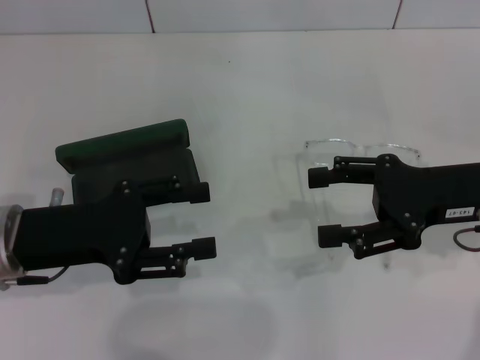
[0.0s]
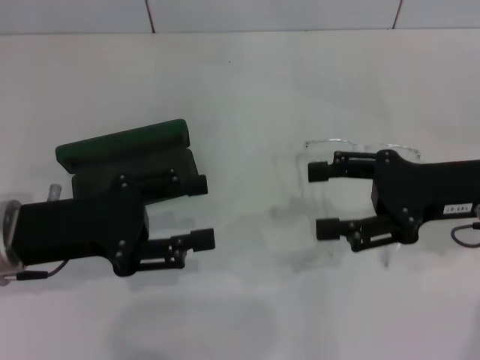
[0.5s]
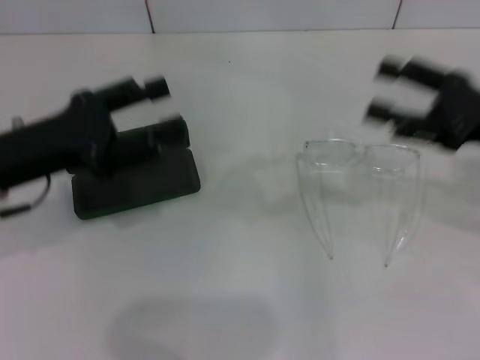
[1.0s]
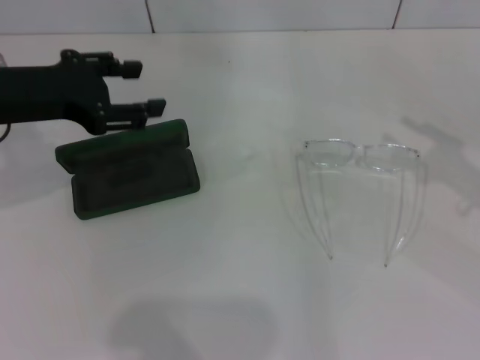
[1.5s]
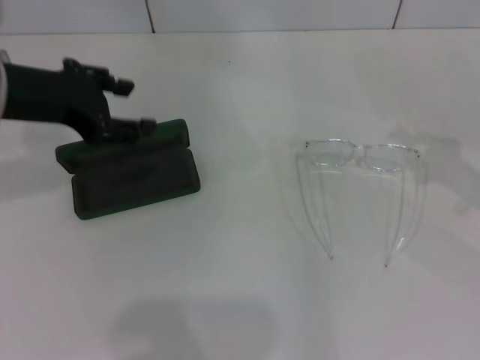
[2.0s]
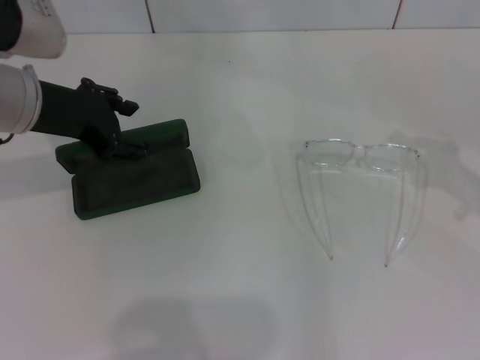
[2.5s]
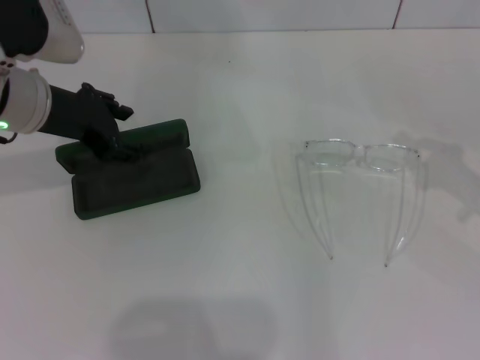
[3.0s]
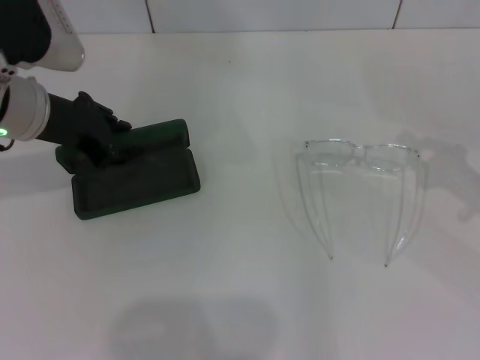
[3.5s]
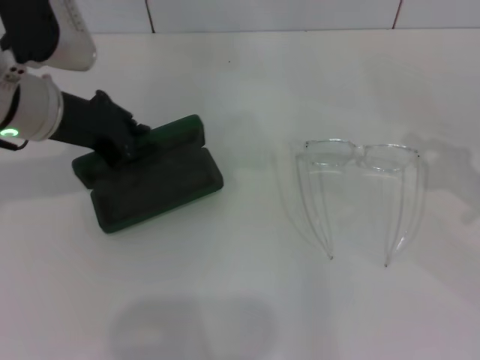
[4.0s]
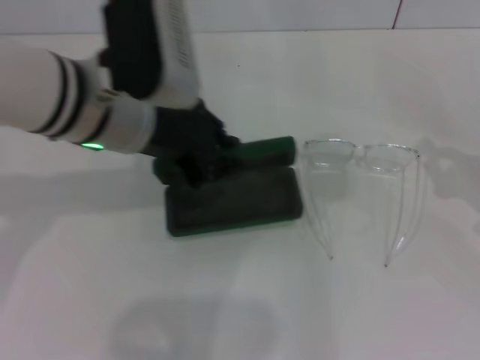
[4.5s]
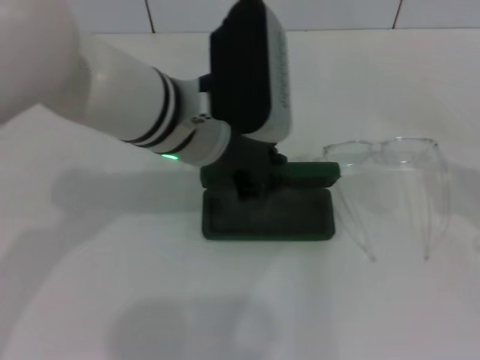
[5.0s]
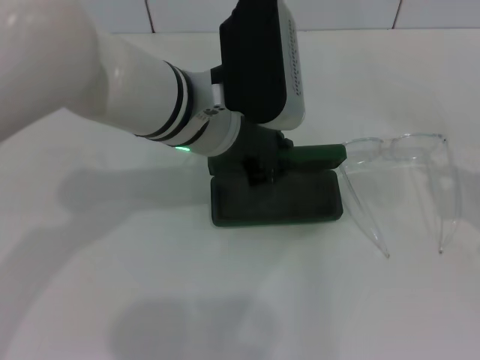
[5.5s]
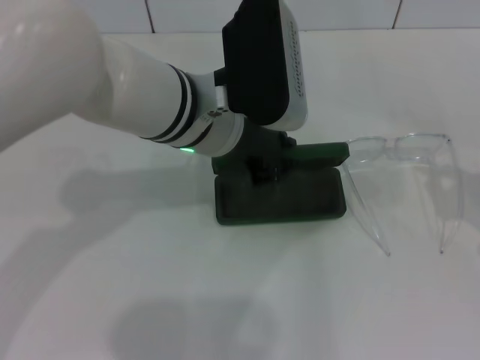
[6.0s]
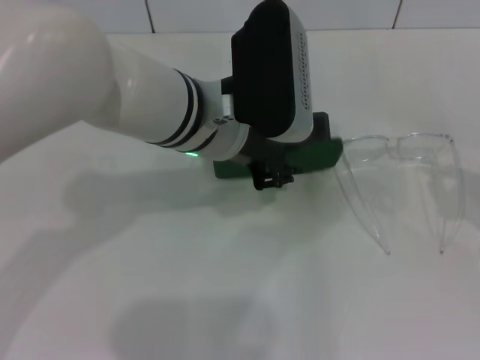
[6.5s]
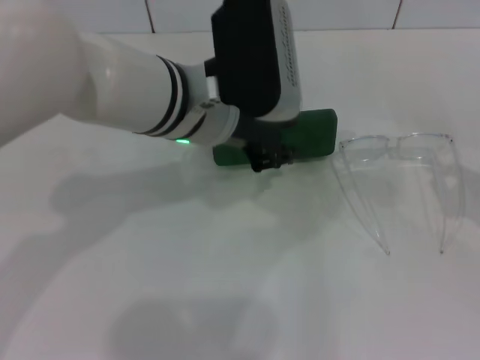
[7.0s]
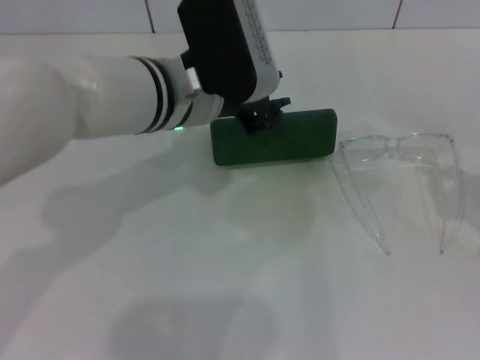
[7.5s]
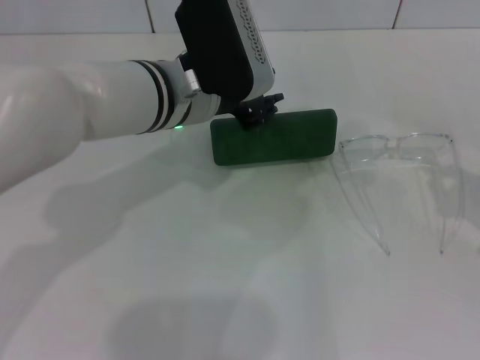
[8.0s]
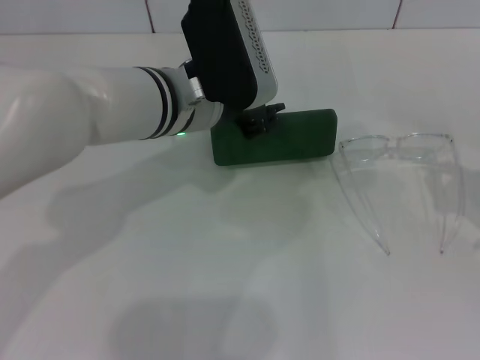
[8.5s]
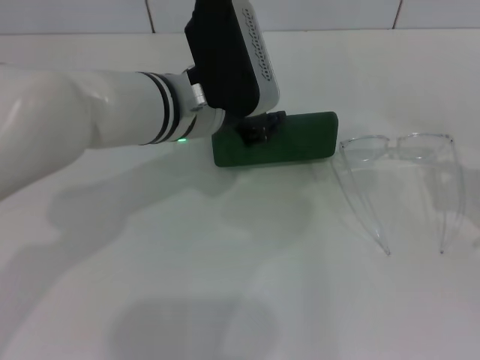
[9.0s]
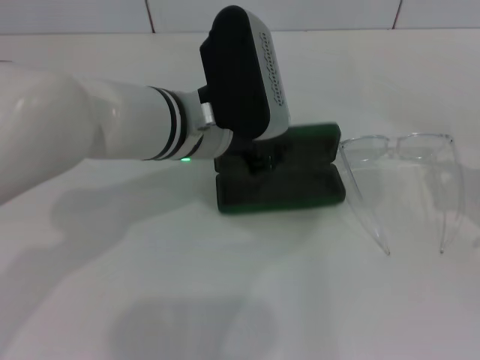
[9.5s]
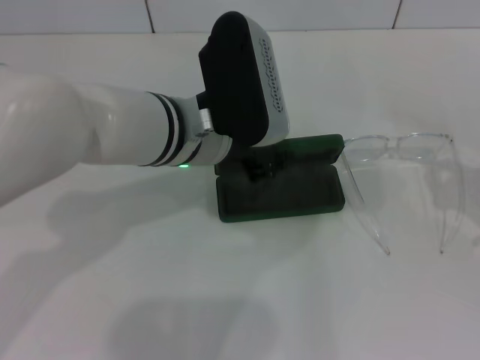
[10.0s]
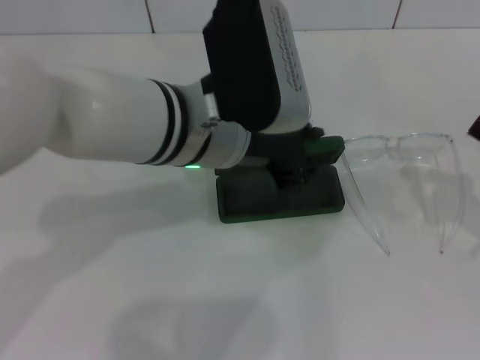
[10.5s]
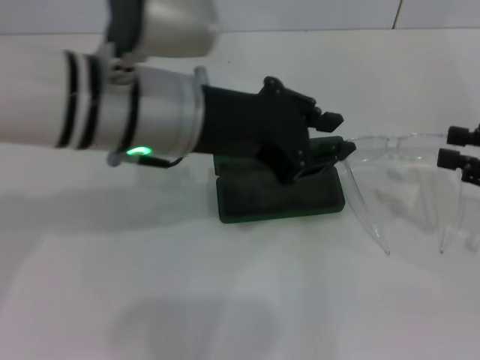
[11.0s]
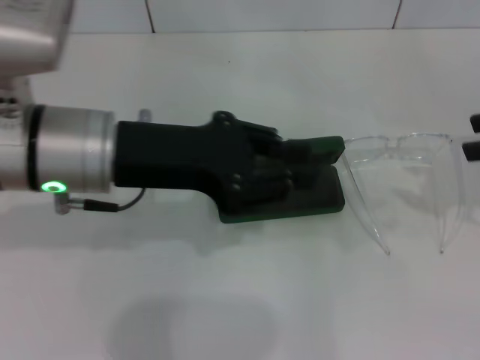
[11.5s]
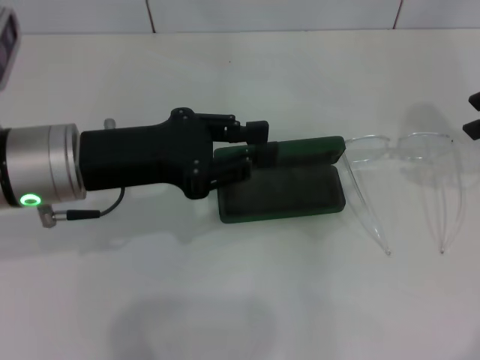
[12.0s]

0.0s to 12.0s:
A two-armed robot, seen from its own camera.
Step, 0.0s to 3.0s: Grab the glasses case with your left hand.
Step, 3.5s to 10.0s: Place the glasses case in the center of the table with your left hand.
0.0s to 2.0s: The right gripper goes some 10 cm to the right, and closes; the left gripper is displaced upward and forward by some 15 cm.
2.0s to 4.0s: The left gripper closes.
4.0s to 6.0s: The left gripper shifts about 15 cm to the right.
8.0s to 10.0s: There are only small adjustments of the grippers.
10.0s to 12.0s: The left gripper heads to the left, covering some 10 cm. Meanwhile the right gripper goes about 20 cm upward and forward, and opens up.

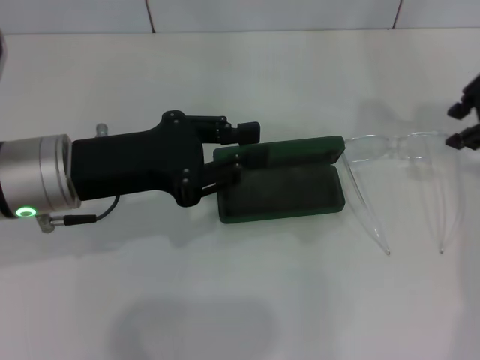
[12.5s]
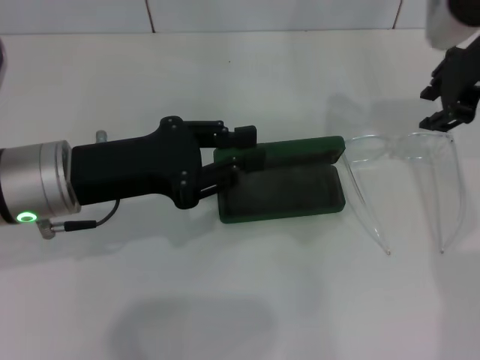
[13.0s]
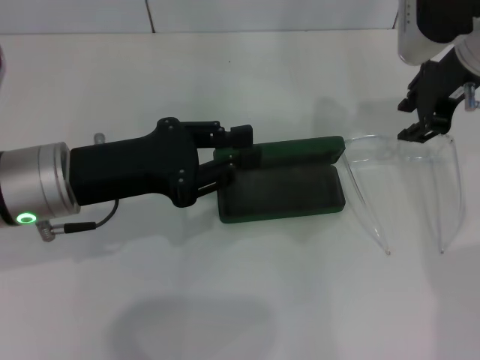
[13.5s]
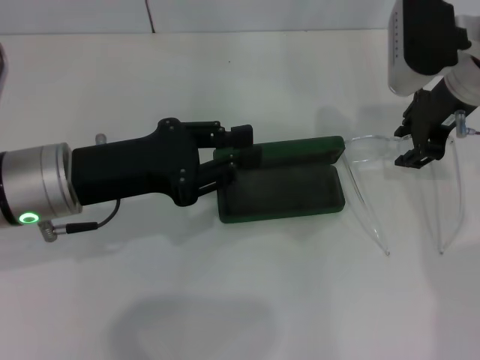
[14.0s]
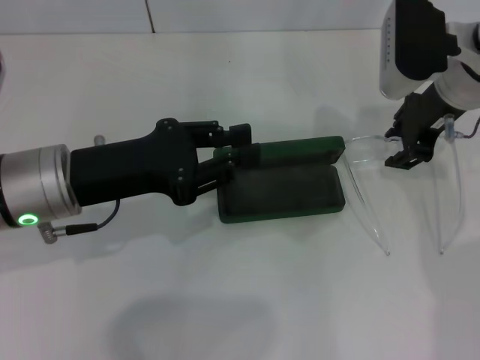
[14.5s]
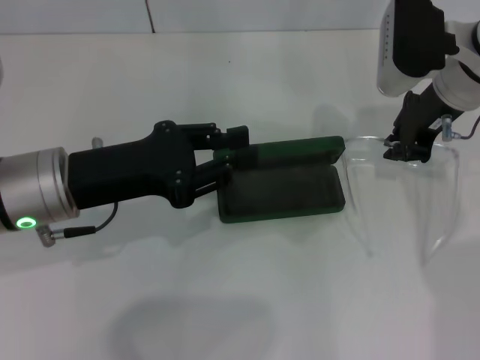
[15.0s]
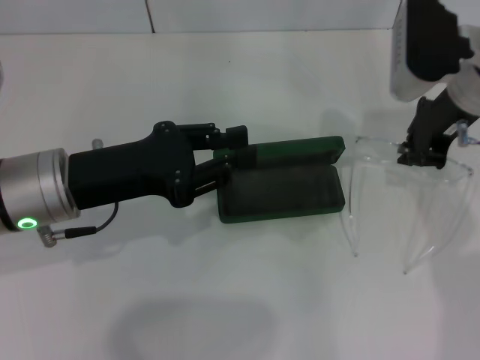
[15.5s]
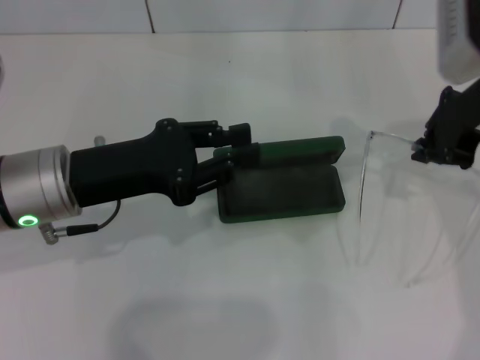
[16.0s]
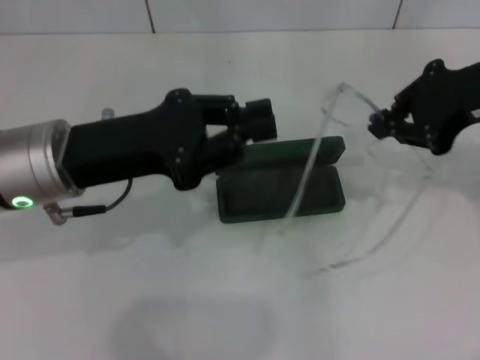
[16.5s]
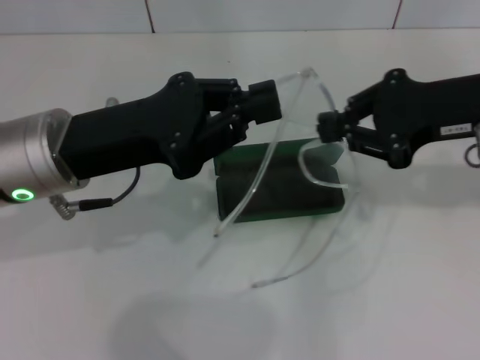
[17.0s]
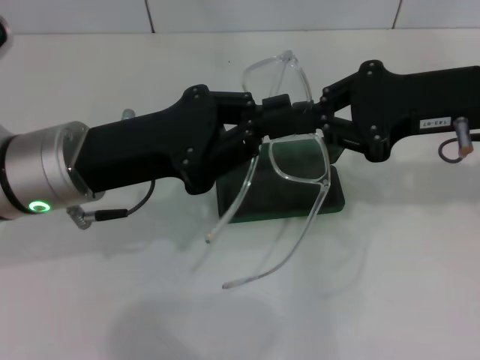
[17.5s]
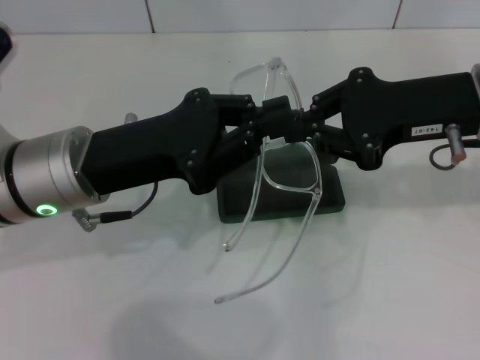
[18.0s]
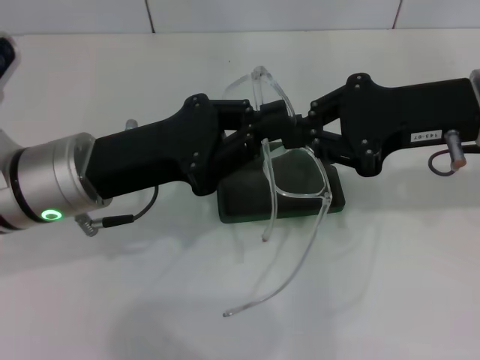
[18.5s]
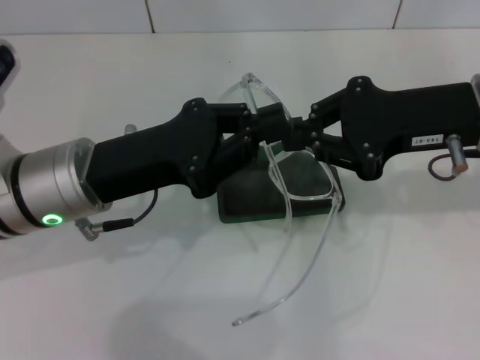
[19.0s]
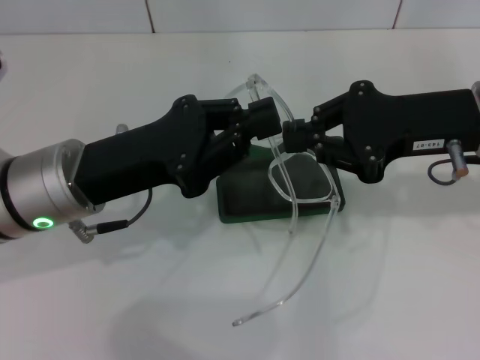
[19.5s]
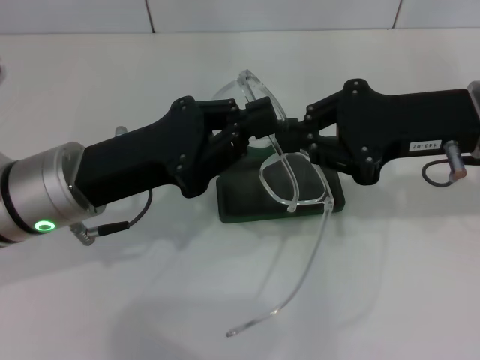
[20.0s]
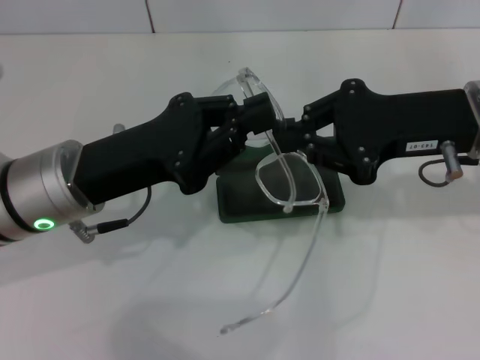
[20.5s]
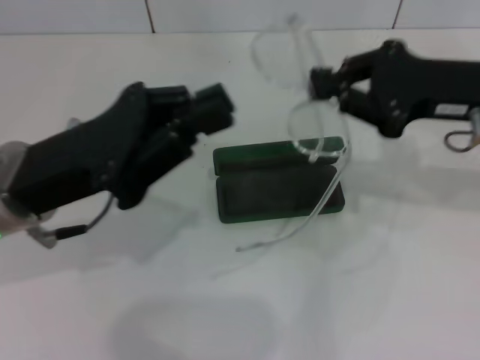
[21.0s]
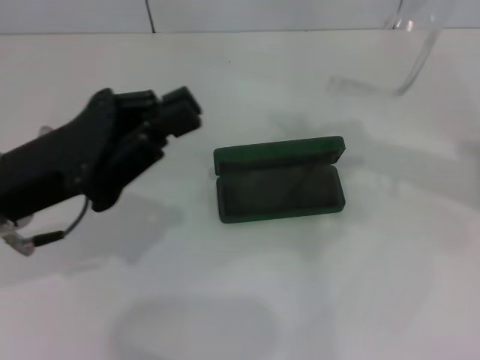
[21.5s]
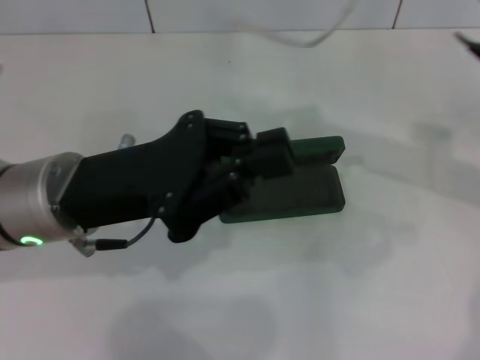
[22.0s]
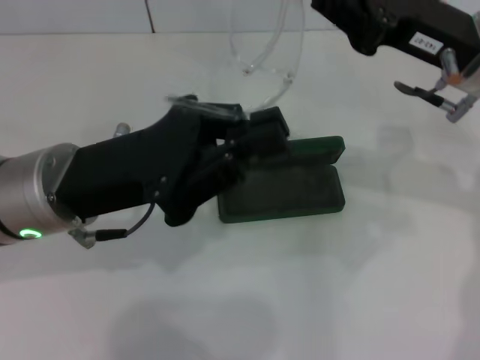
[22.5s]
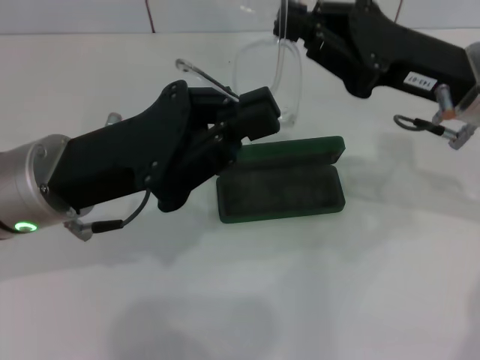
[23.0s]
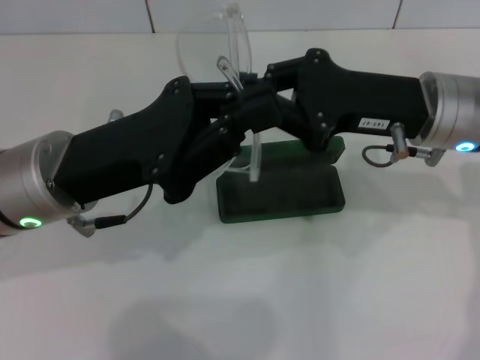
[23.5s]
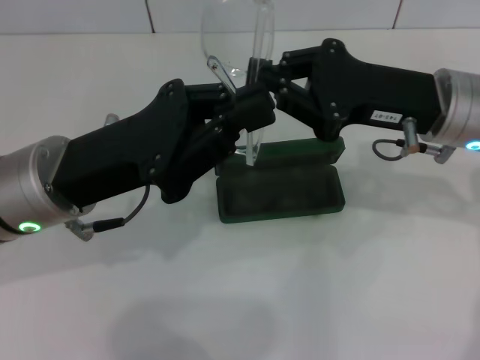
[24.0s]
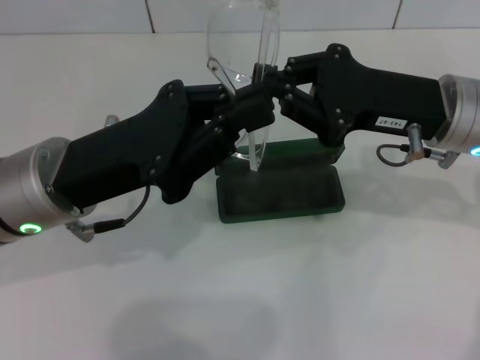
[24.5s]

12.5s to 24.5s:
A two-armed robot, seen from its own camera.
Step, 12.5s to 15.0s: Grab the eyeglass frame with your right hand.
12.5s to 14.5s: The right gripper moves downward and to the left, roughly 10 cm.
14.5s to 16.5s: The right gripper shifts approximately 10 cm backward and upward, and closes.
16.5s to 18.5s: The right gripper changes place by about 5 cm.
18.5s to 20.5s: The grippers make only small movements.
20.5s to 22.5s: The right gripper goes to the right and returns, approximately 10 cm each way.

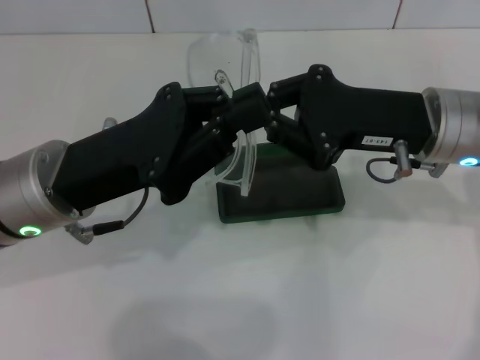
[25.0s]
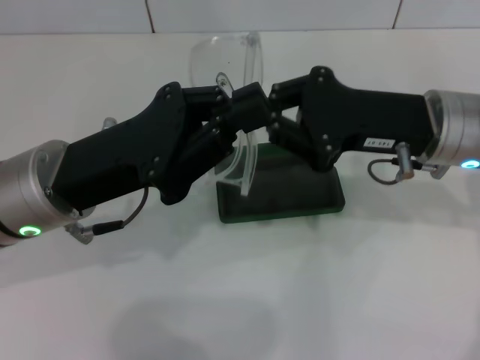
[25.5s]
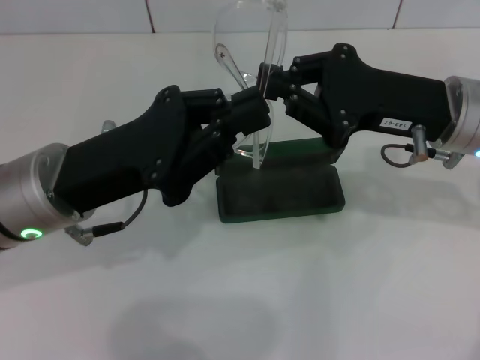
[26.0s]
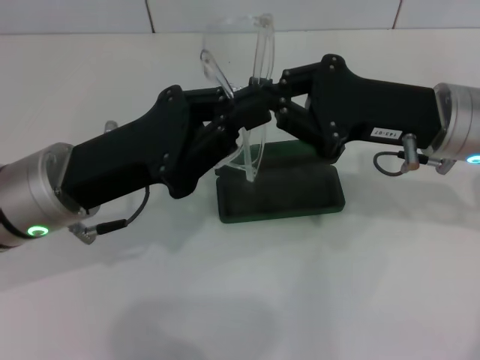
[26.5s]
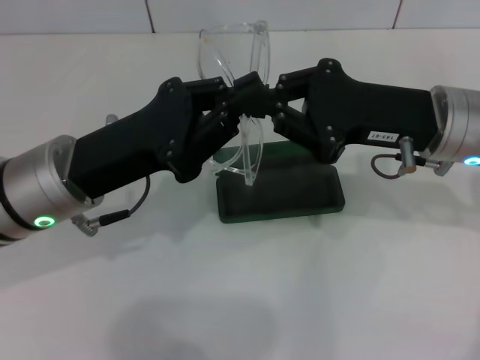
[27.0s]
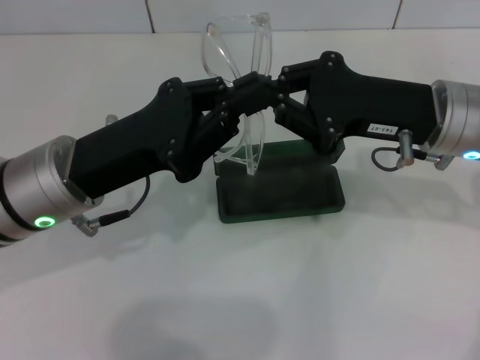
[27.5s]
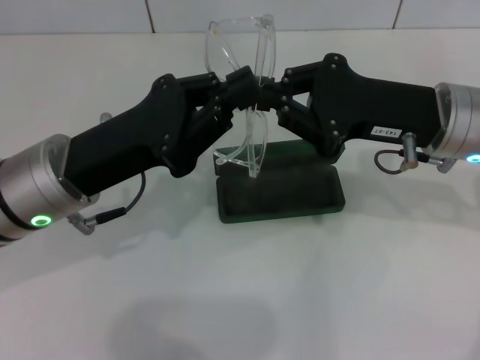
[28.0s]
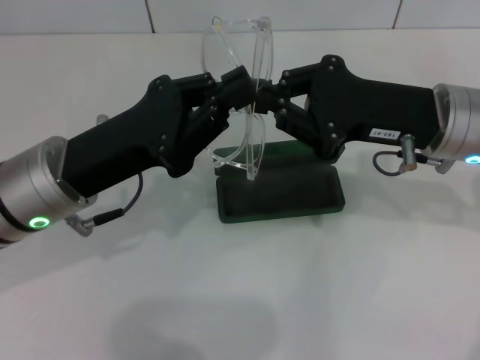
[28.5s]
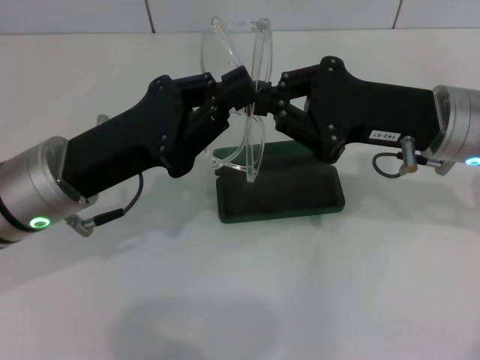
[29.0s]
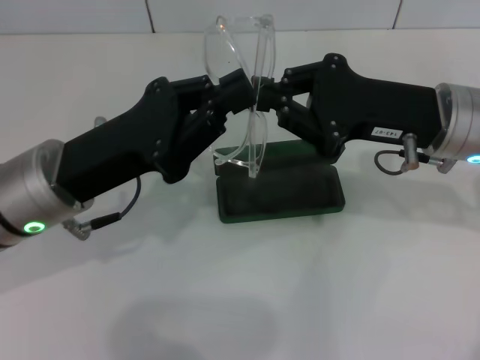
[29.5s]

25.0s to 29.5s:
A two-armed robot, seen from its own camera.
Step, 25.0s to 29.0s: Fold the frame with your left hand.
25.0s to 27.0s: There are only small adjustments of the grippers.
27.0s to 29.5s: Both grippers stay put.
